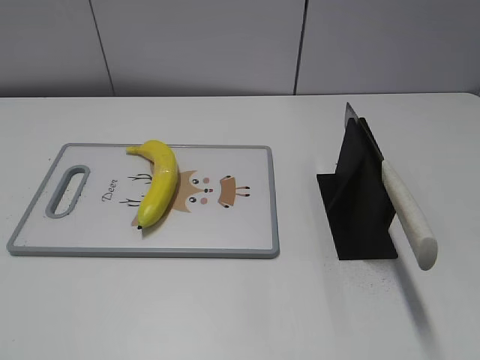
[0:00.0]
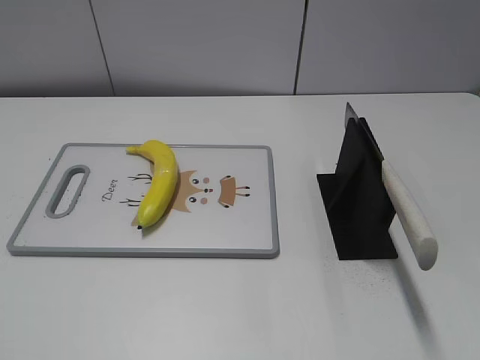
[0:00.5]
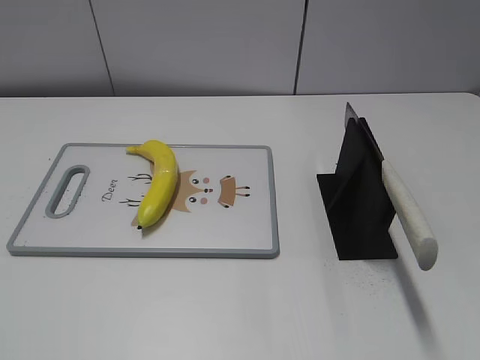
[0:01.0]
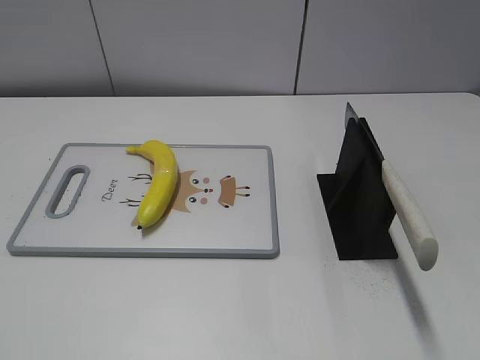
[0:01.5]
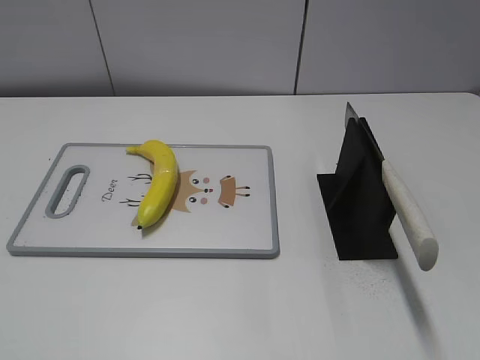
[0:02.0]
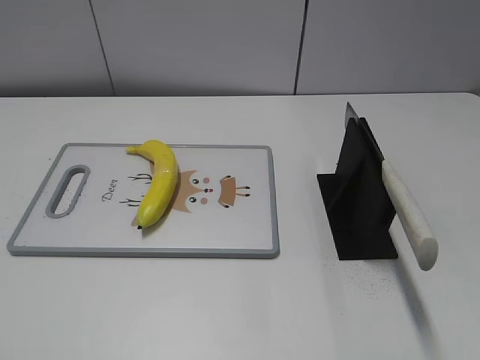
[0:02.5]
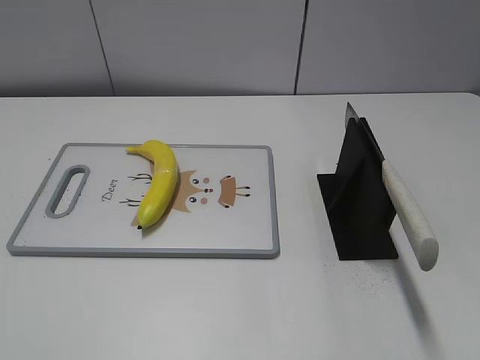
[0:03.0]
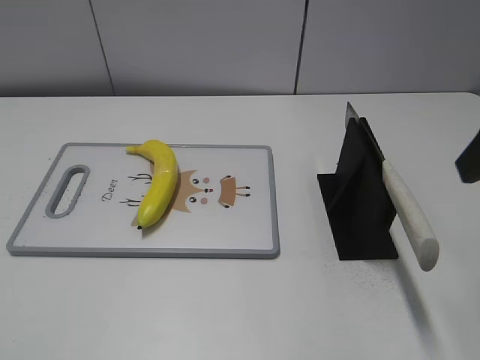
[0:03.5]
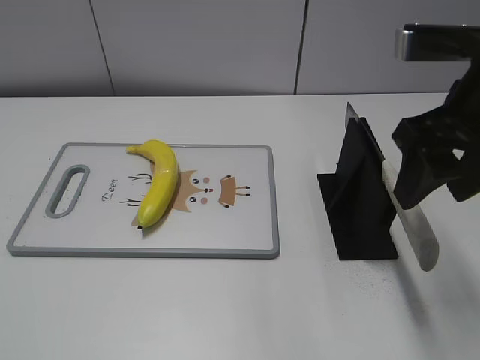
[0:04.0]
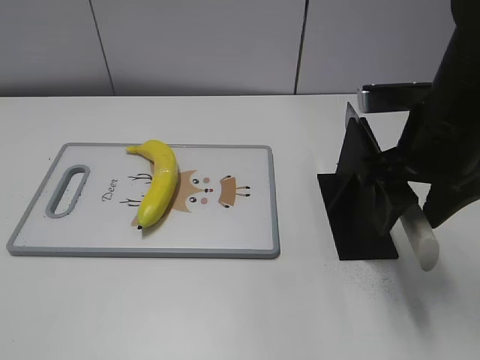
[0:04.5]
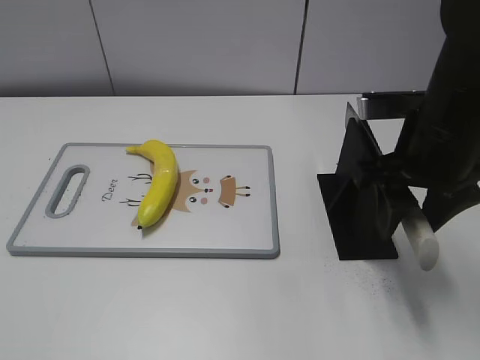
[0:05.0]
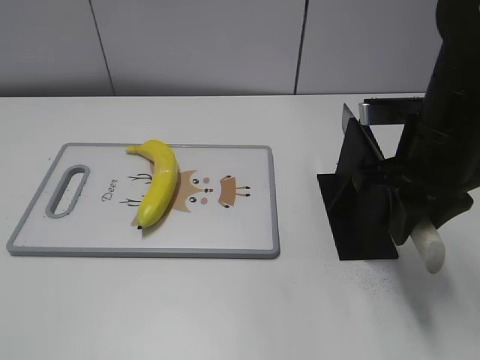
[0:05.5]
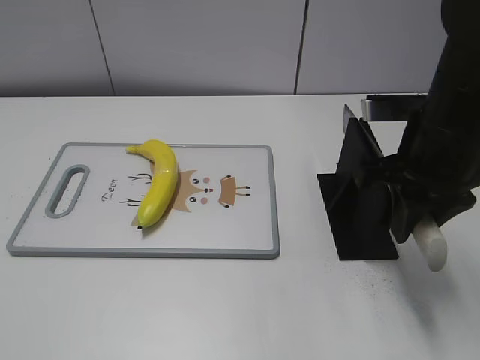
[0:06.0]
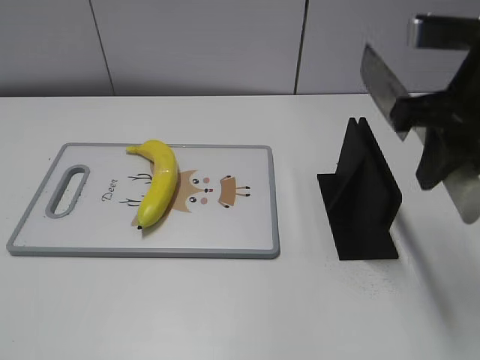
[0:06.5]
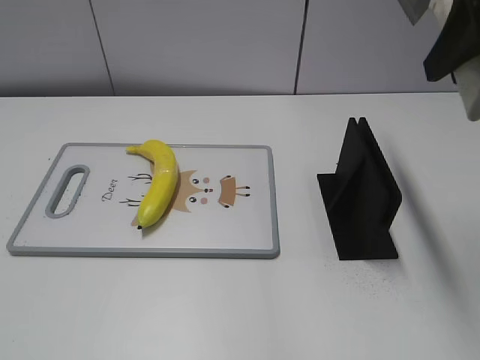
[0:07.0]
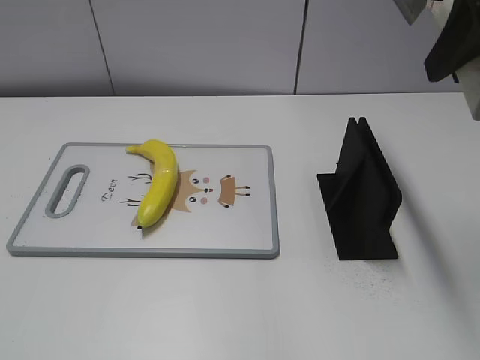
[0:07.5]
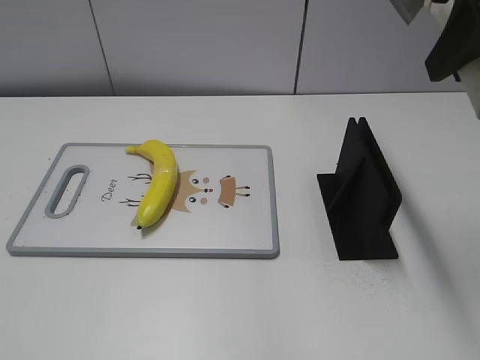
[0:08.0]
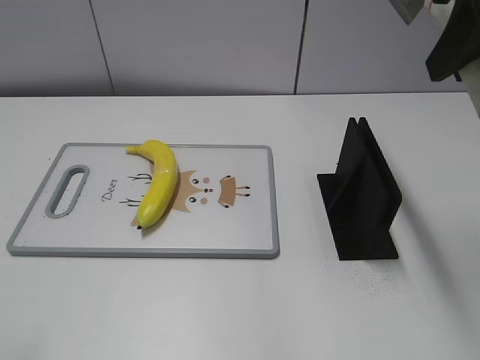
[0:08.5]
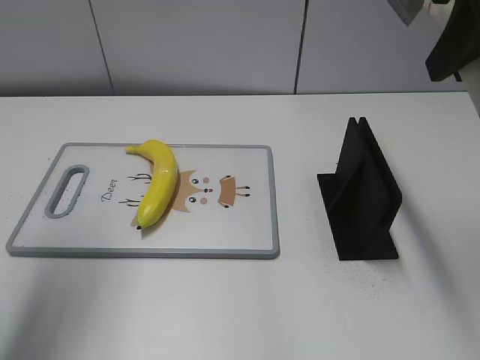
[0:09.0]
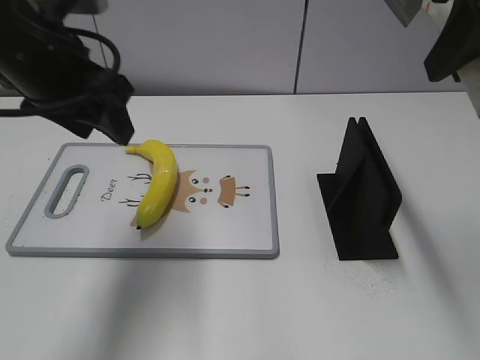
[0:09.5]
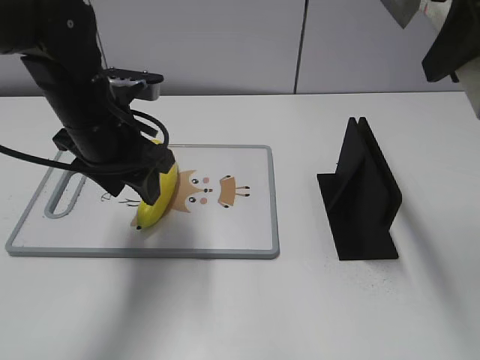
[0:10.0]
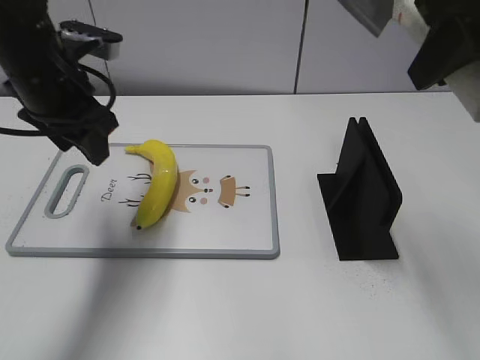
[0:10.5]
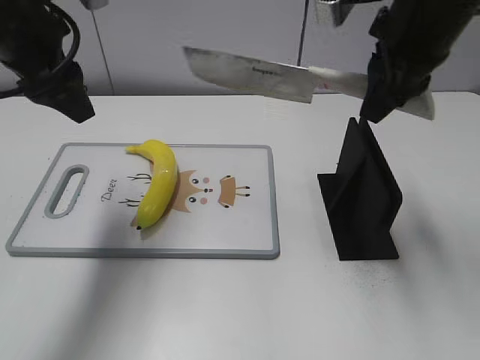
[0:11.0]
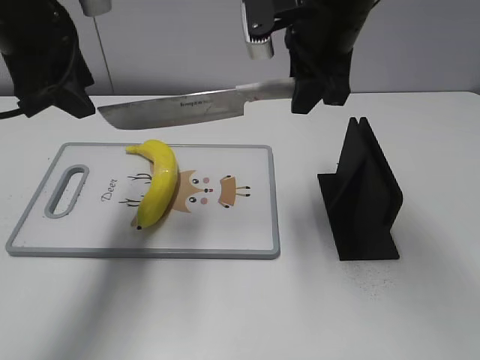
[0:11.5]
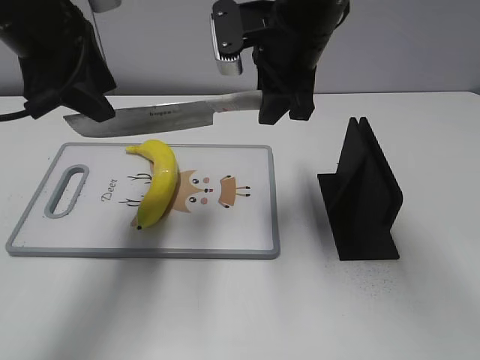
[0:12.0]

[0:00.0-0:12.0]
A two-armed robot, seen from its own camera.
Task of the whole recording: cut plastic banana.
Step, 0:00.0 to 0:07.0: Grab the knife handle with your right hand.
0:02.0 to 0:04.0: The right gripper travels forward and to the left by roughly 25 cm.
0:04.0 to 0:06.0: The right gripper shifts some 5 cm downward, and closes up.
0:06.0 to 0:08.0: The right gripper is displaced upward by about 15 cm.
0:08.0 to 0:10.0: The left gripper shifts approximately 35 cm forward and to the right.
0:10.0 to 0:12.0: The left gripper moves upward, roughly 10 cm. The right gripper moves forward, to the left and downward, approximately 20 cm.

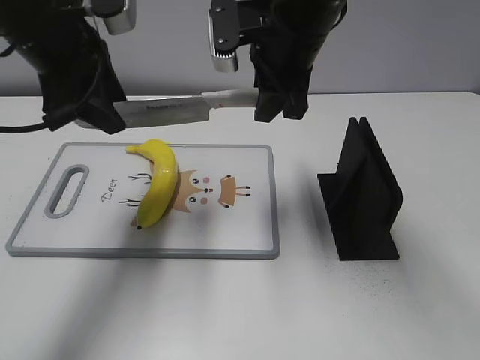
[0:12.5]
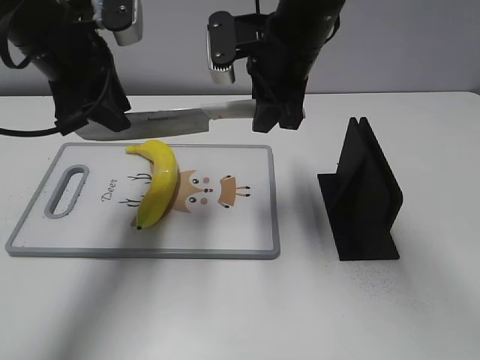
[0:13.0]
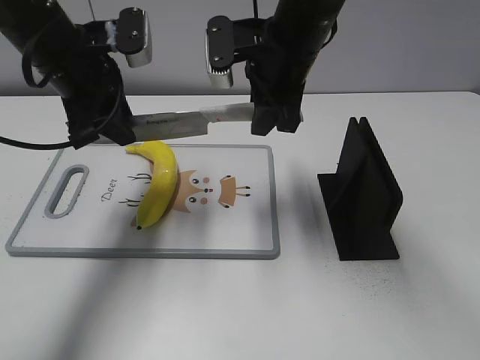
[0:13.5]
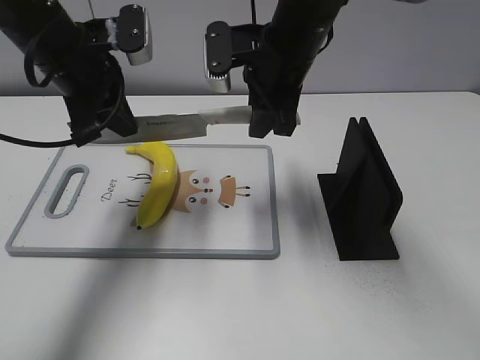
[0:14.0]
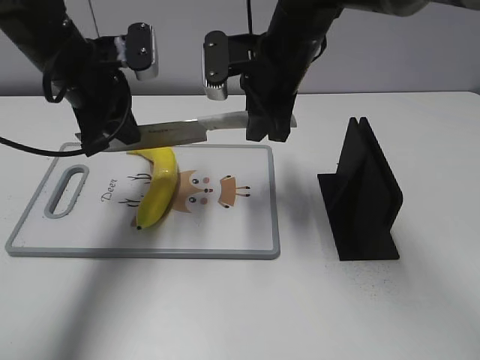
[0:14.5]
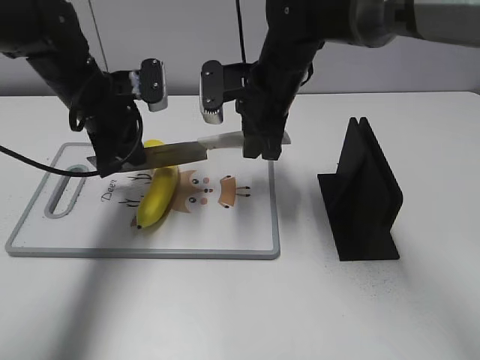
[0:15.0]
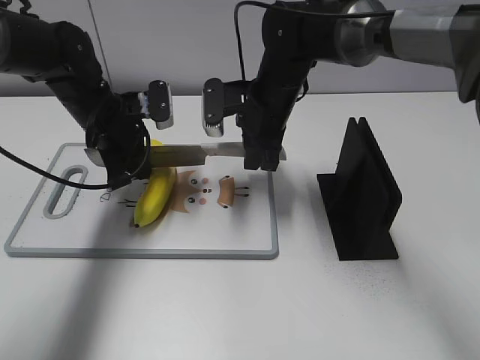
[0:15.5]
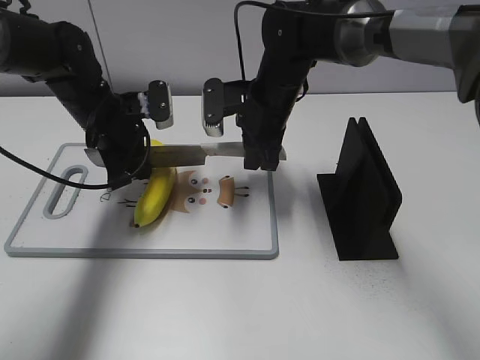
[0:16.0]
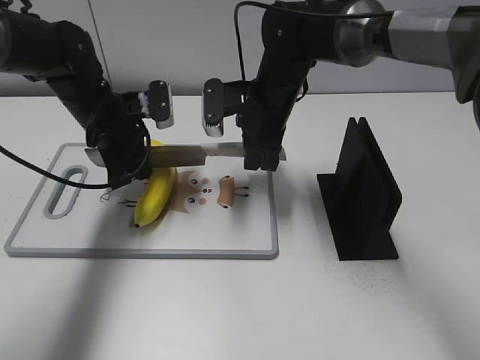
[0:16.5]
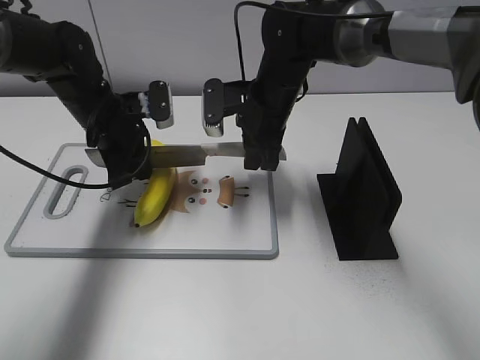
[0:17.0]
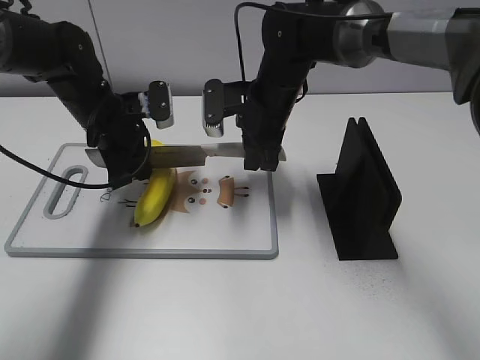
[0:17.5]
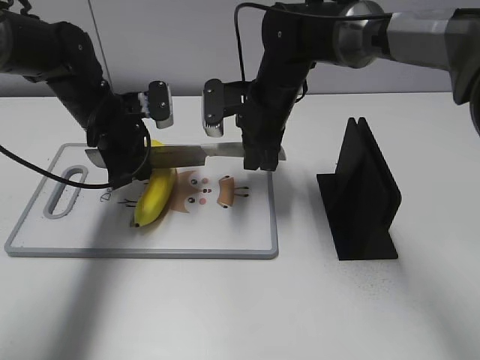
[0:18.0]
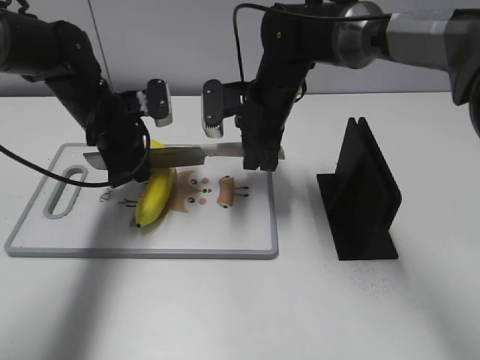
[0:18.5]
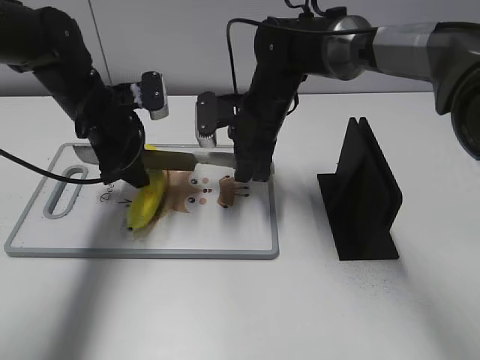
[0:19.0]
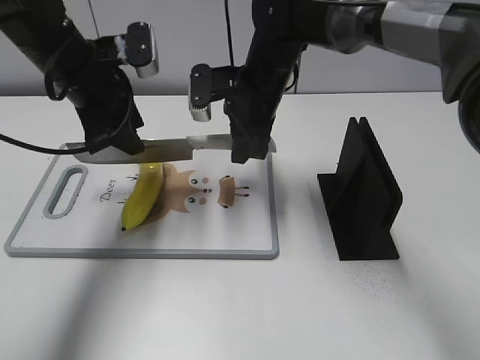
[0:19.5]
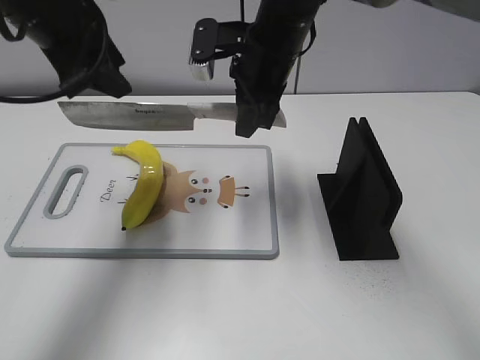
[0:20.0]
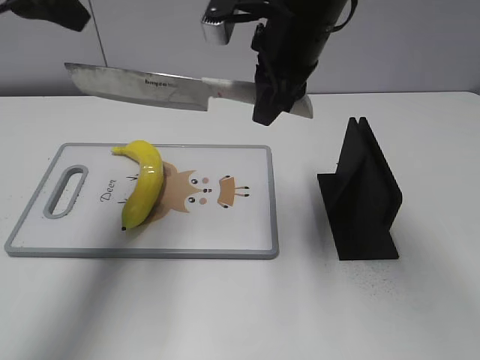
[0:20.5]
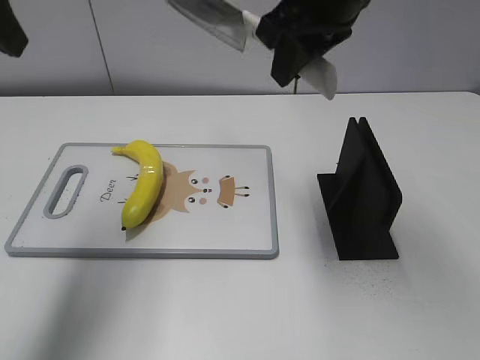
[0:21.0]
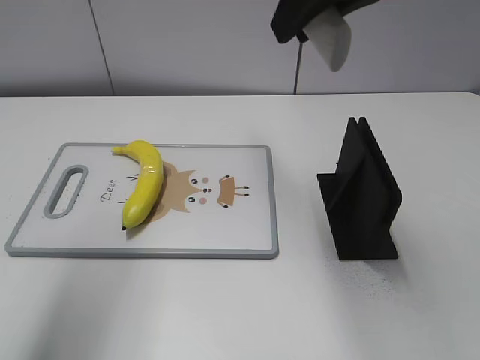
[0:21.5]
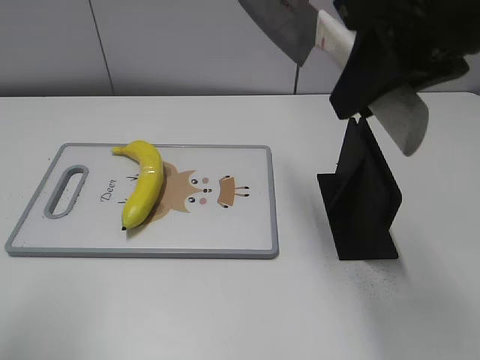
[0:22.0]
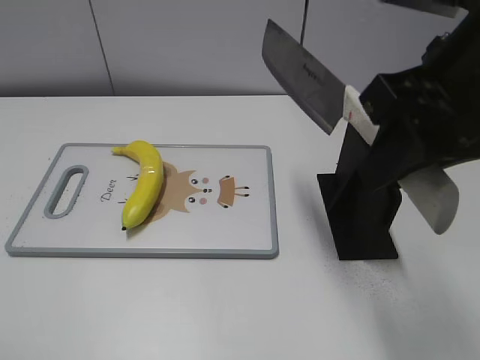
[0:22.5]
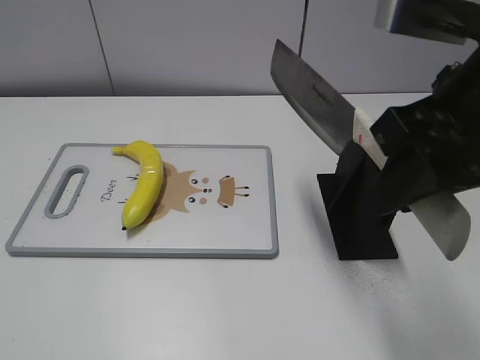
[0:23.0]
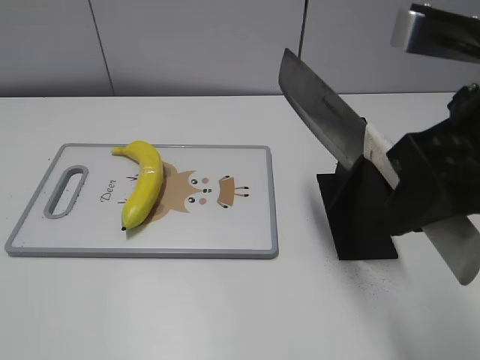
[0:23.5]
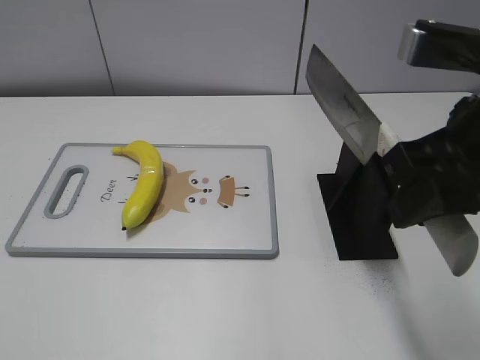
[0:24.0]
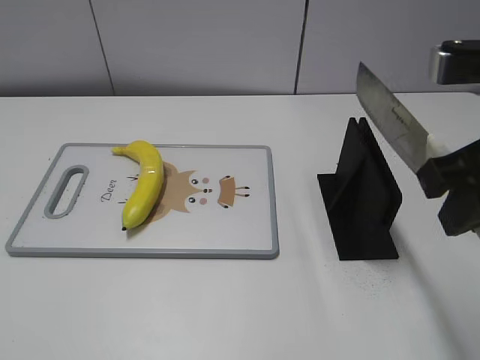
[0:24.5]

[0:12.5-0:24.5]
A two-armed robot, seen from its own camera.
Task of the whole recording: cut plastic banana.
Step, 0:12.5 to 0:17.0: Lift the knife with your right hand.
Step, 0:17.5 to 0:20.5: Cut the banana with your right hand.
Step, 0:21.0 to 0:24.0: Lift the knife with your right hand.
0:12.5 to 0:14.5: The left gripper shifts approximately 5 cm downward, and closes its fingers.
0:14.5 to 0:16.5: The two grippers go some 10 cm downward.
0:16.5 to 0:18.5: The two grippers keep their place.
0:18.5 to 0:20.5: The right gripper moves upward and backward, approximately 15 cm; the left gripper heads upward, covering approximately 25 cm, and opens up.
0:20.5 to 0:22.5: The left gripper moves backward, about 25 cm; the right gripper shifts about 20 cm backward and to the right.
0:22.5 to 0:24.5: The right gripper ends up some 5 cm from where it was. The left gripper heads backward, covering some 5 cm.

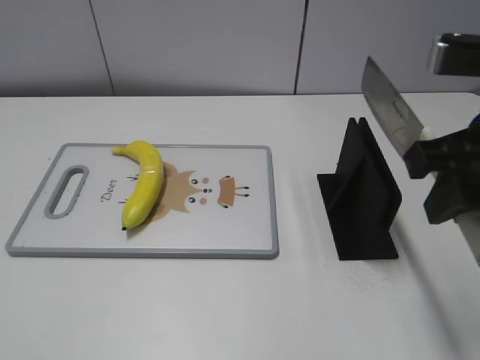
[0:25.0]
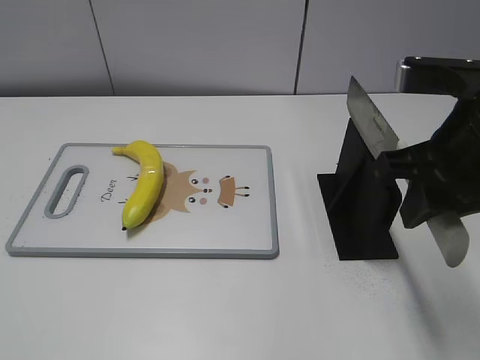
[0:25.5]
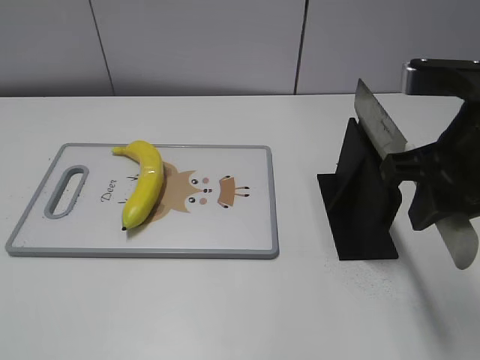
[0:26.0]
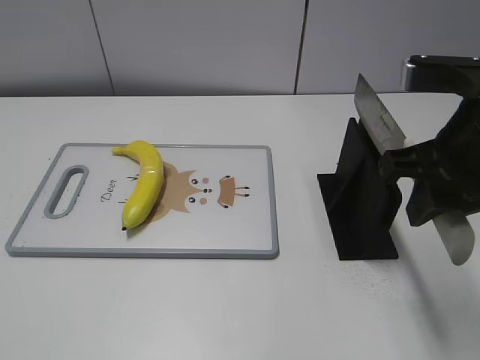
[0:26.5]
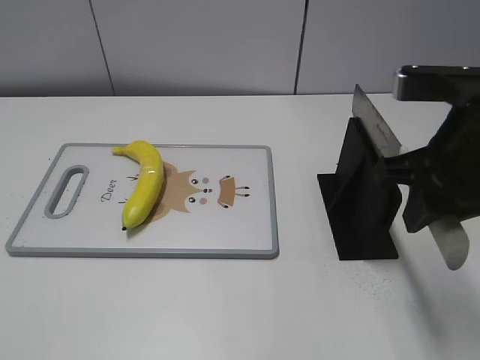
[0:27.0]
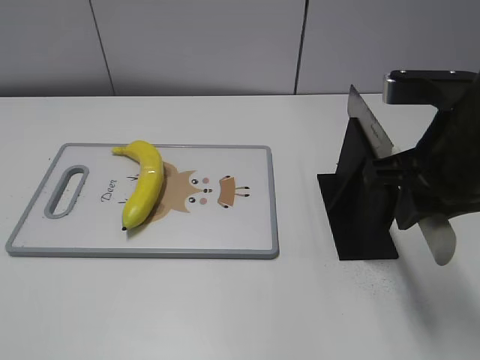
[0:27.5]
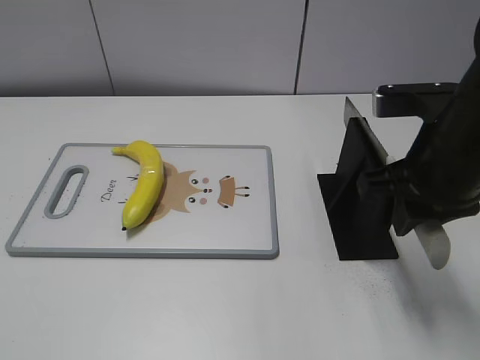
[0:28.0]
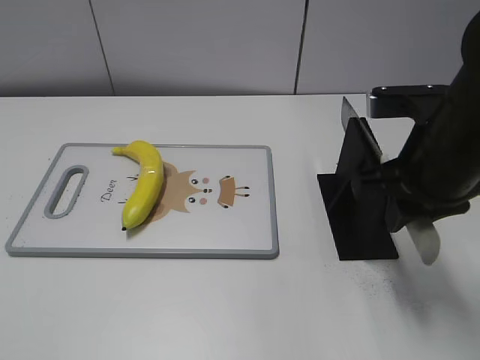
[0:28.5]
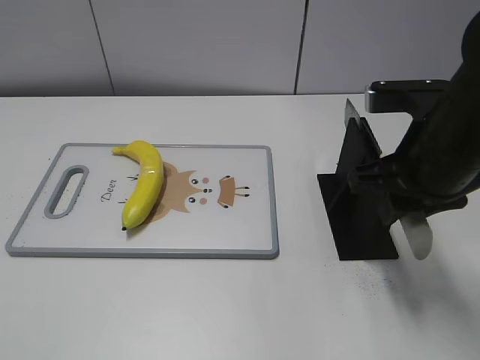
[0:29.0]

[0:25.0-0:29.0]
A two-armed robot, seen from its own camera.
Task of the whole recording: cut plastic banana.
0:25.0 to 0:27.0: The grippers stay close to where they were, moving slightly.
0:27.0 to 0:29.0: The grippers move only a little.
